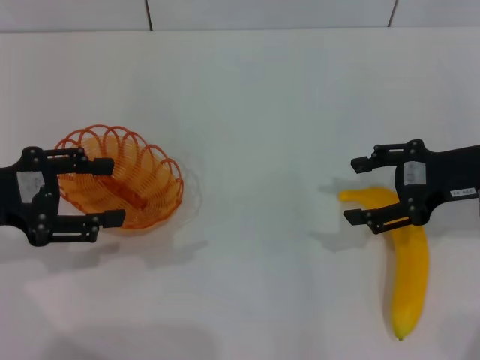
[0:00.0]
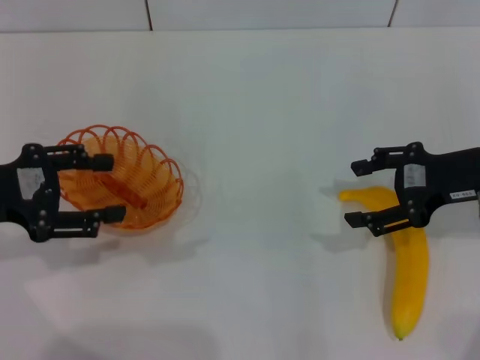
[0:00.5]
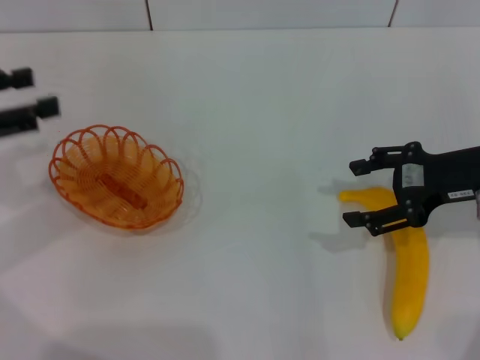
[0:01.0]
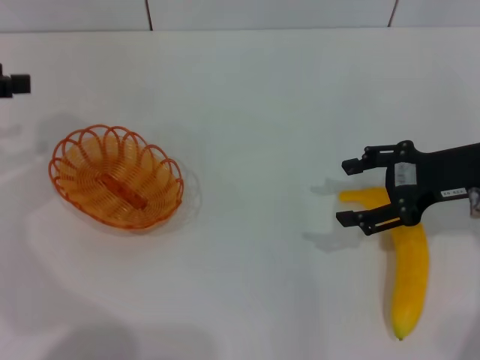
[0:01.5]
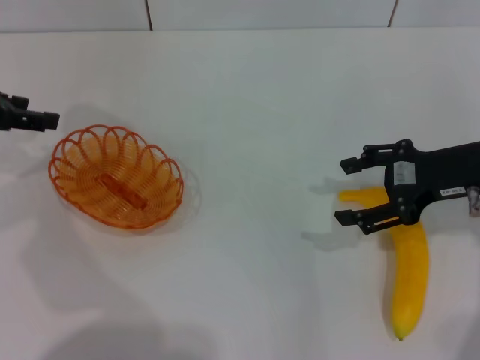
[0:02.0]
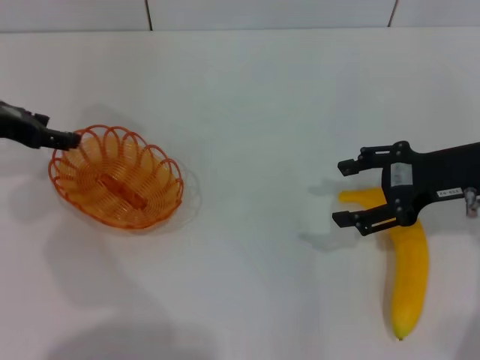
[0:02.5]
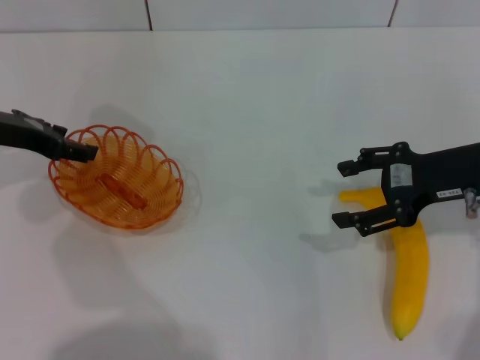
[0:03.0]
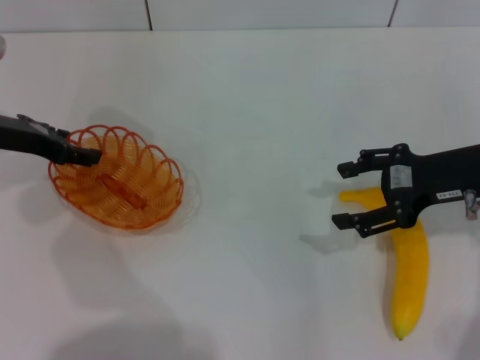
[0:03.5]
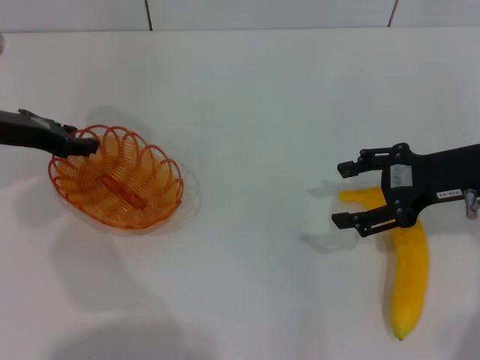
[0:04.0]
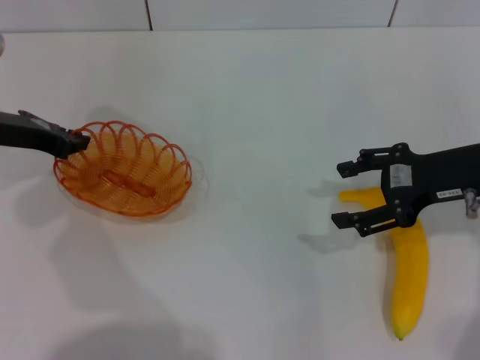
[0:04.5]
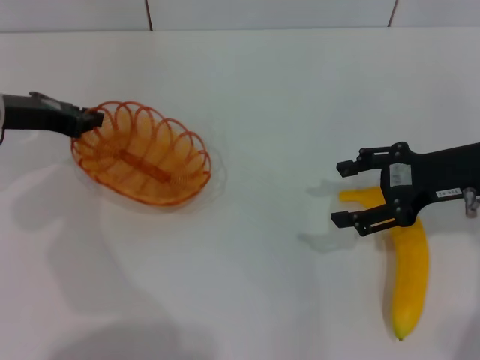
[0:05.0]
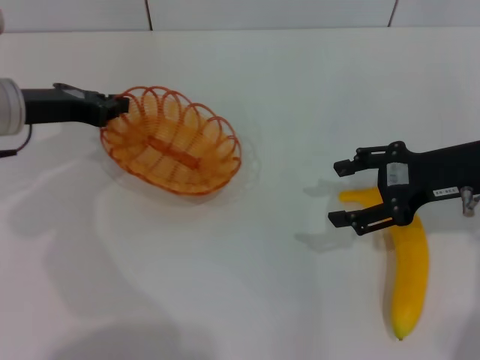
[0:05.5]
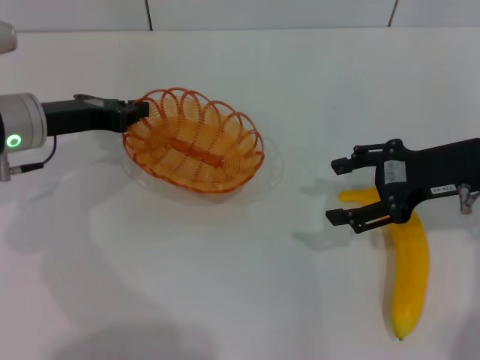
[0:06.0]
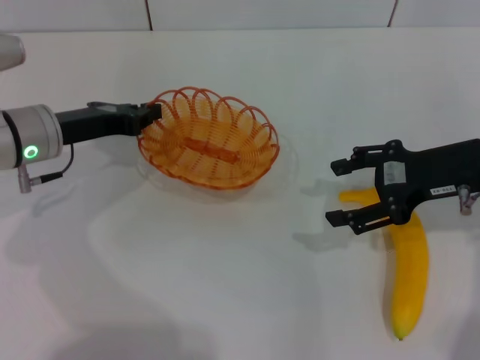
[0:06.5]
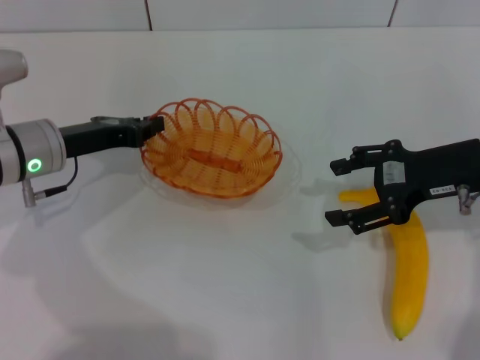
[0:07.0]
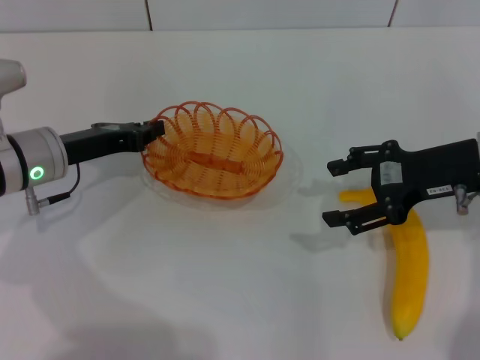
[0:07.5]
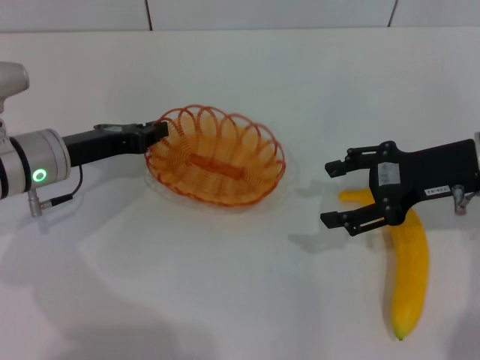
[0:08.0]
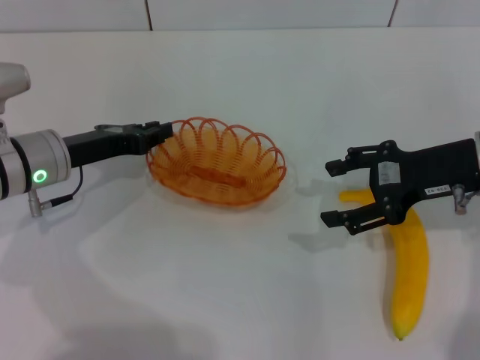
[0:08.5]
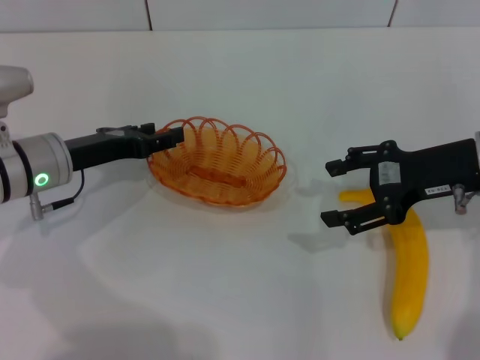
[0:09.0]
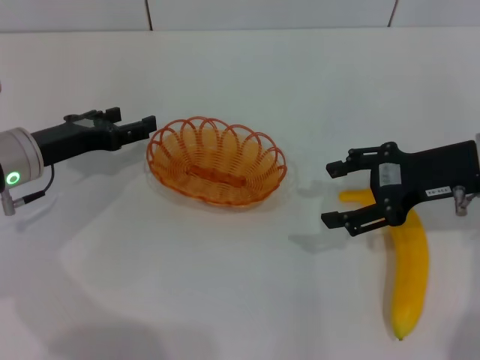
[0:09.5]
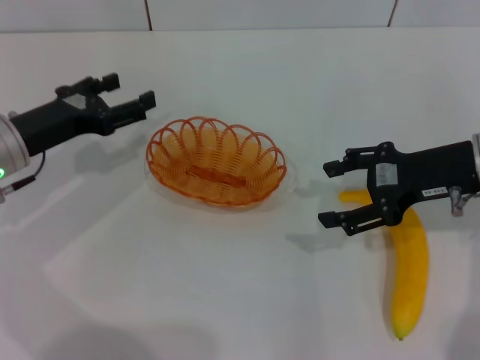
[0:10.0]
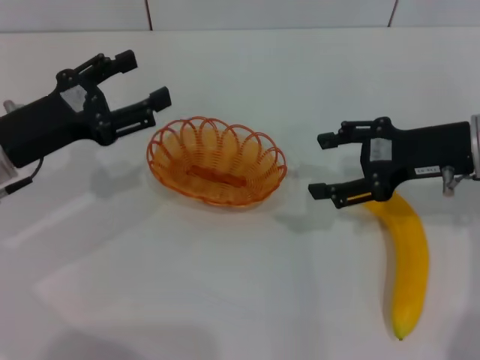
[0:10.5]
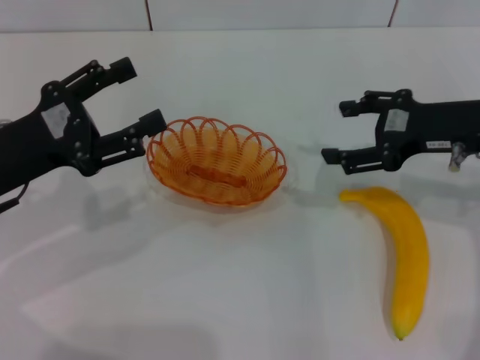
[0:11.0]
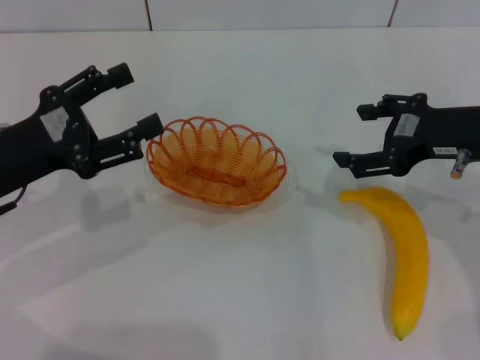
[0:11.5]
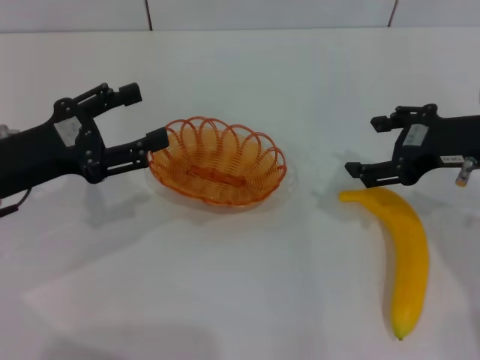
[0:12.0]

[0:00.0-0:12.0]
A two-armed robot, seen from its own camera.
Step, 0:00.0 to 0:05.0: Pick up the basket with the left gripper.
Step, 0:05.5 to 0:09.5: Place the basket in the center of view with the left gripper.
0:00.0 to 0:02.0: The left gripper travels forward by approximately 10 cm.
0:02.0 to 0:04.0: The left gripper shifts roughly 5 cm downward.
0:04.0 to 0:06.0: The left gripper closes up.
0:06.0 to 0:08.0: The grippers make only small movements.
0:08.0 to 0:10.0: The left gripper opens its fingers.
0:10.0 to 0:12.0: The left gripper moves backward, approximately 5 cm.

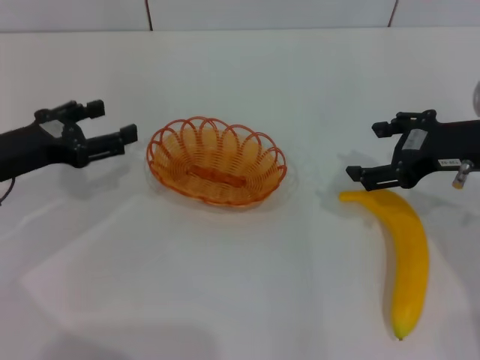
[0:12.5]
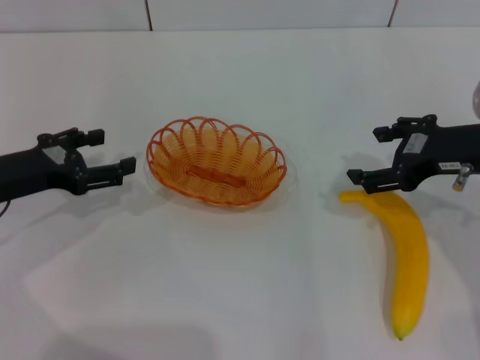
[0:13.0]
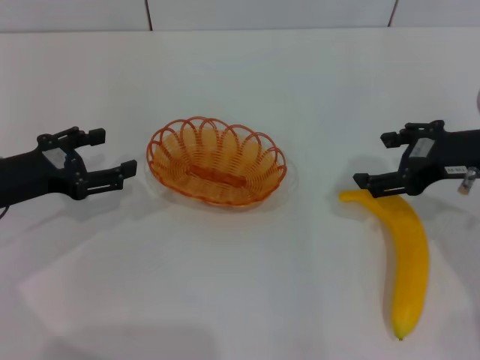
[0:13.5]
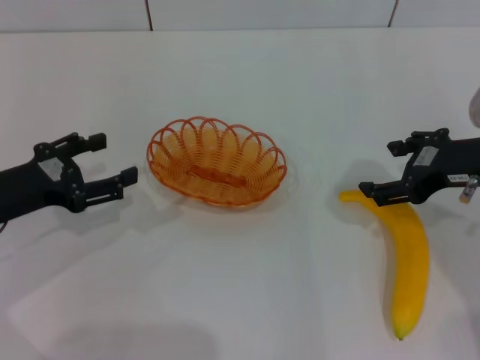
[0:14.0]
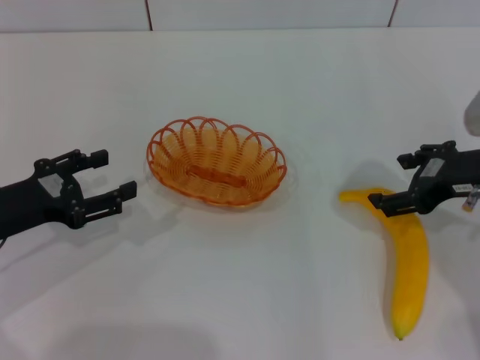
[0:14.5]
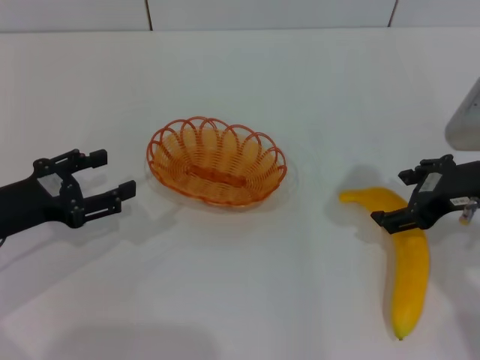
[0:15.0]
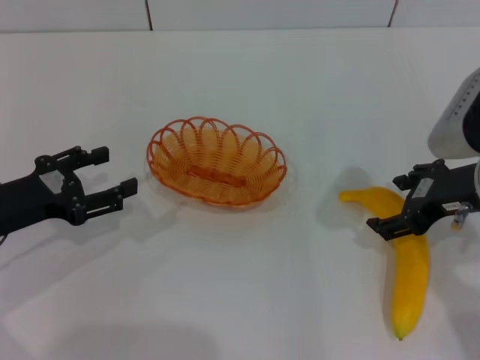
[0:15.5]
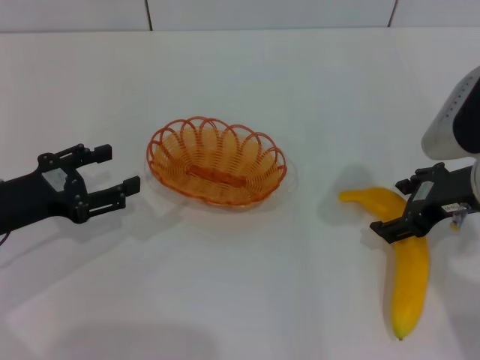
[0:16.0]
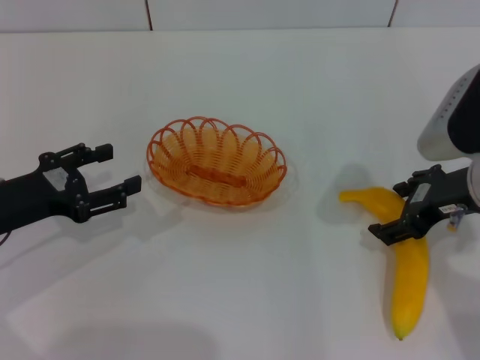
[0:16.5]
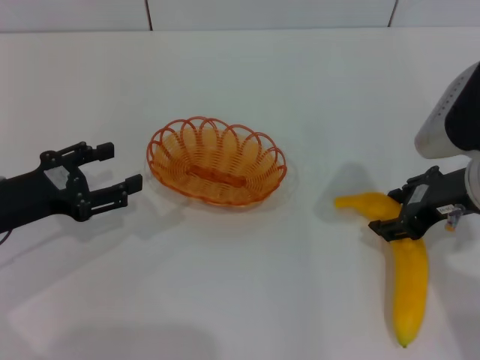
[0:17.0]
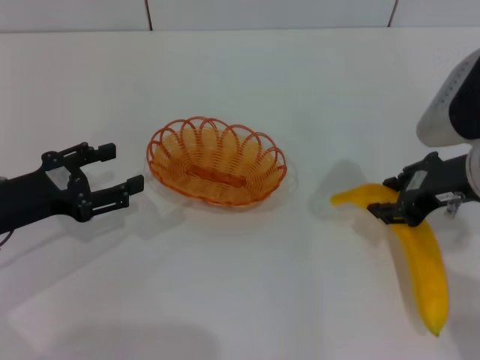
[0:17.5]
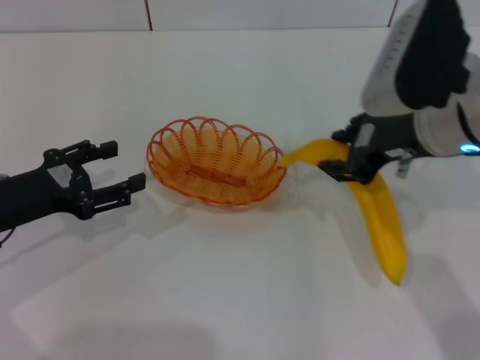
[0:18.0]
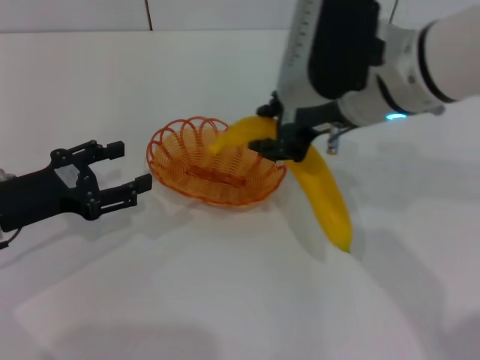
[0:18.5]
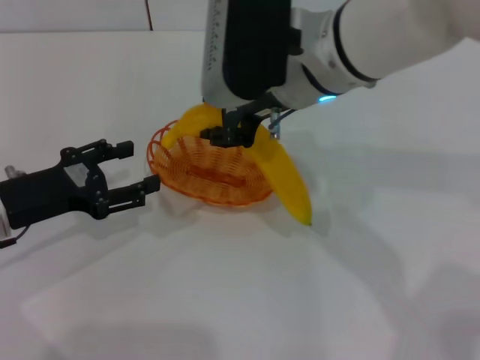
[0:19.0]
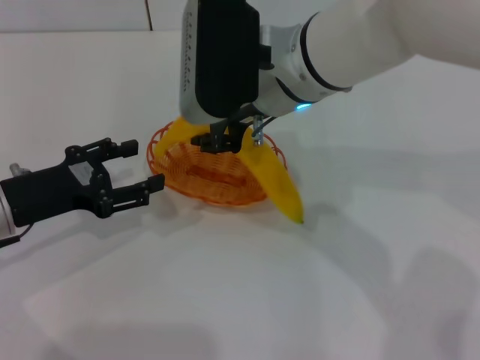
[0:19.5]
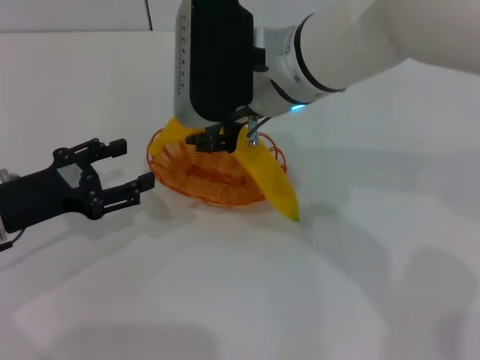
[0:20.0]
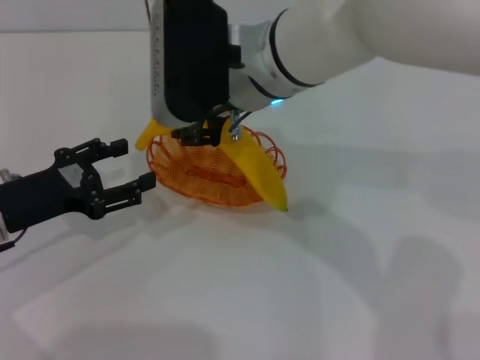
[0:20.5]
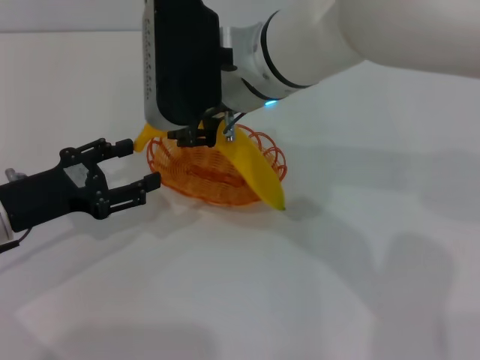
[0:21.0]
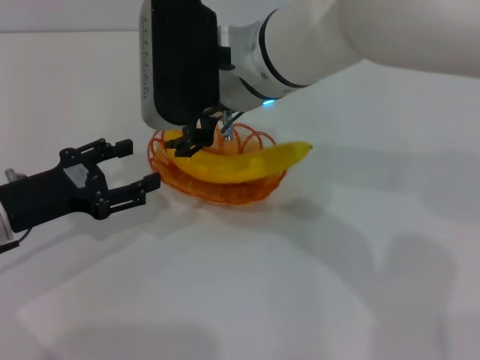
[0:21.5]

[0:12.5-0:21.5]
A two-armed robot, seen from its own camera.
Step, 0:12.5 to 0:17.5: Pick up the banana with the right gripper.
0:12.5 to 0:14.5: The left gripper changes place by approximately 5 cm.
0:14.5 to 0:17.0: There are only small adjustments of the grippers.
0:17.0 to 0:19.5: The right gripper moves to the left, approximately 20 cm, and closes its fingers.
0:19.5 to 0:21.5: The right gripper opens.

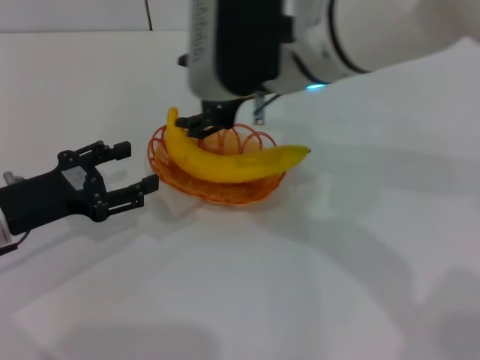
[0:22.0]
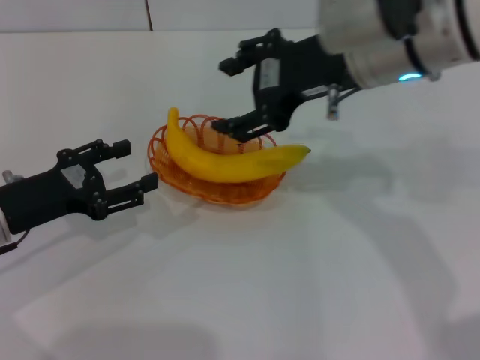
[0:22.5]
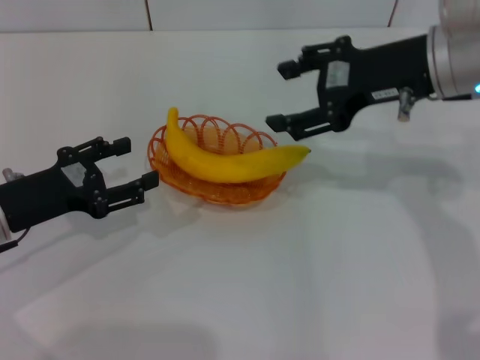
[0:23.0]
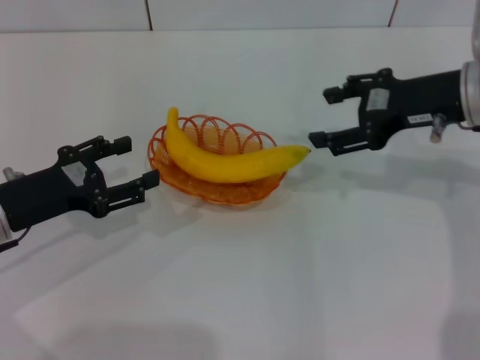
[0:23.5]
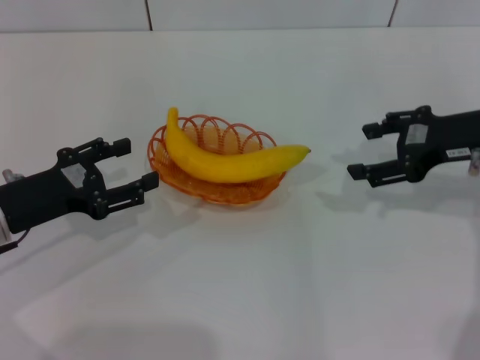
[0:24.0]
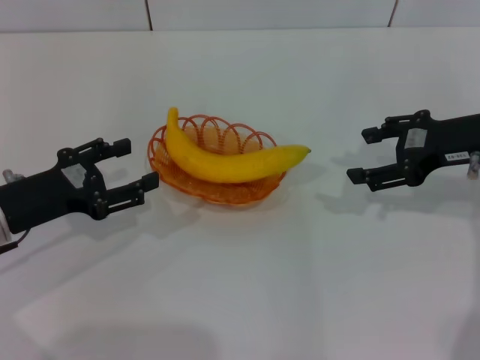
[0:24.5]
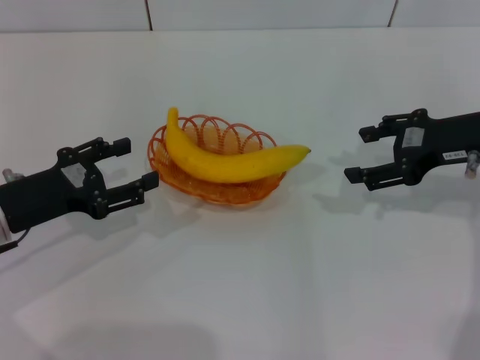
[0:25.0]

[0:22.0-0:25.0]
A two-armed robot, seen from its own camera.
0:22.0 to 0:23.5: The right gripper goes roughly 20 cm to the right.
0:23.5 to 0:25.0: There are only small adjustments of the grippers.
